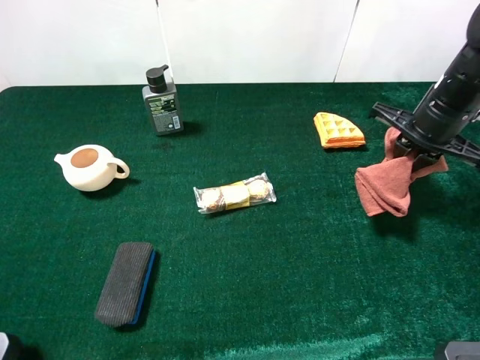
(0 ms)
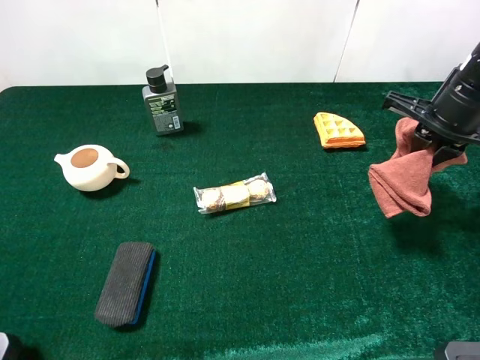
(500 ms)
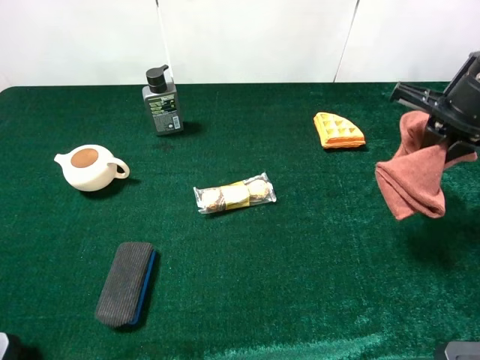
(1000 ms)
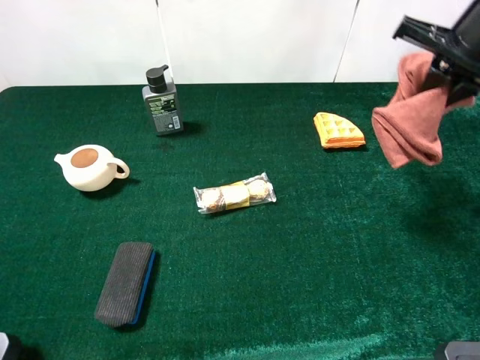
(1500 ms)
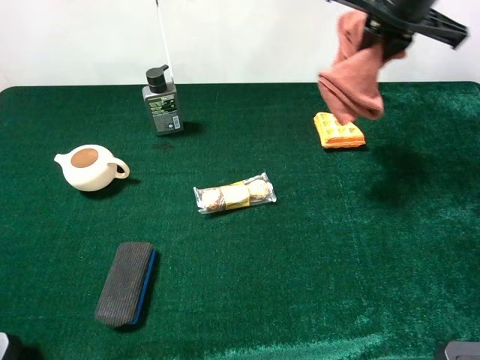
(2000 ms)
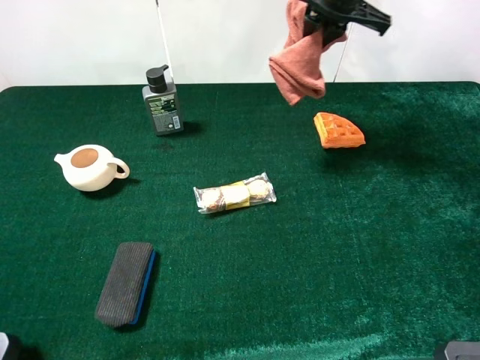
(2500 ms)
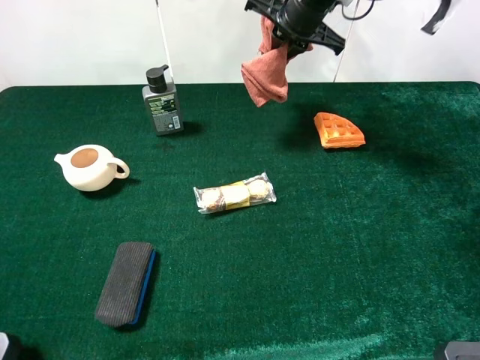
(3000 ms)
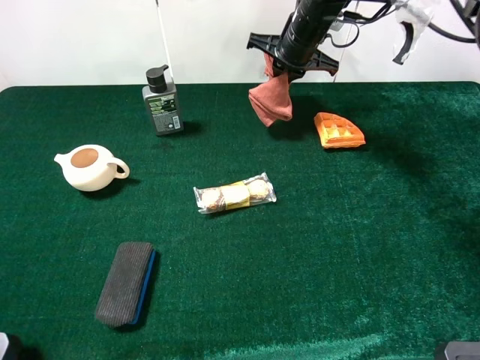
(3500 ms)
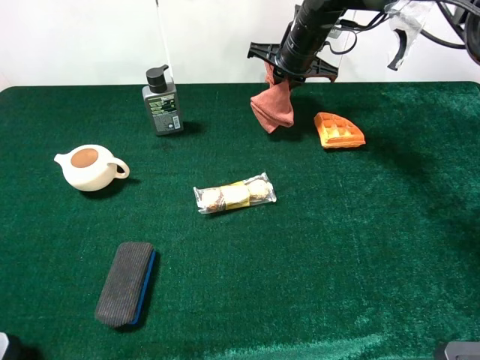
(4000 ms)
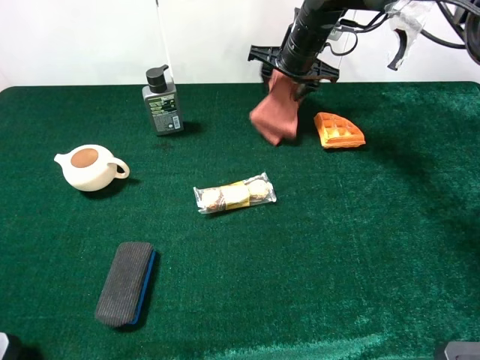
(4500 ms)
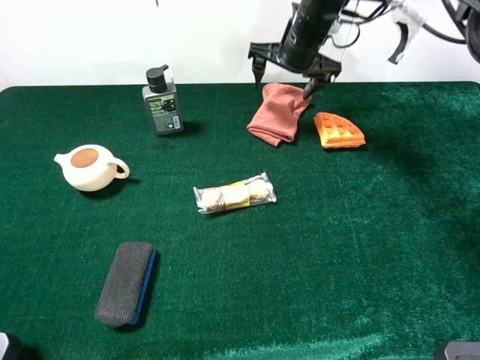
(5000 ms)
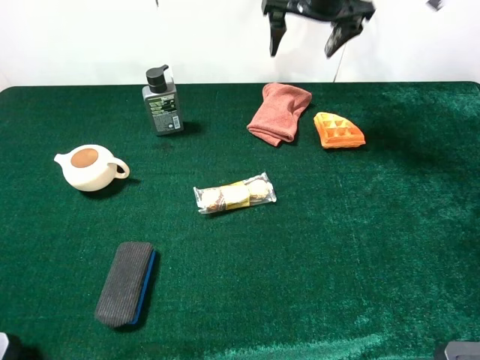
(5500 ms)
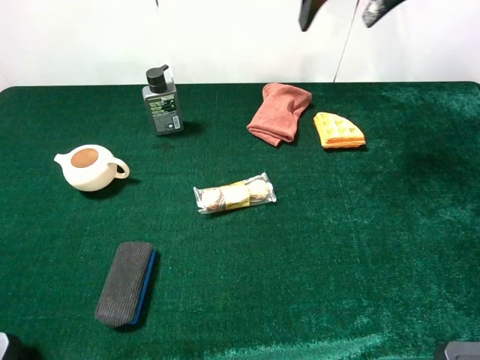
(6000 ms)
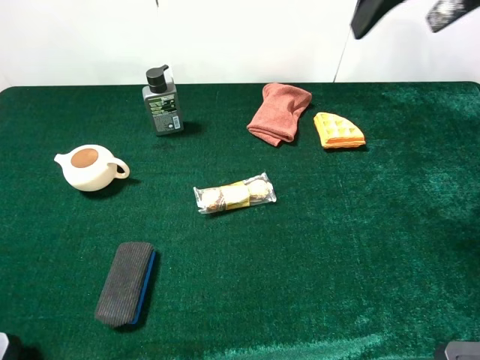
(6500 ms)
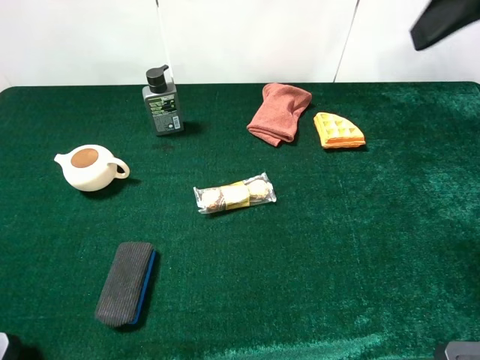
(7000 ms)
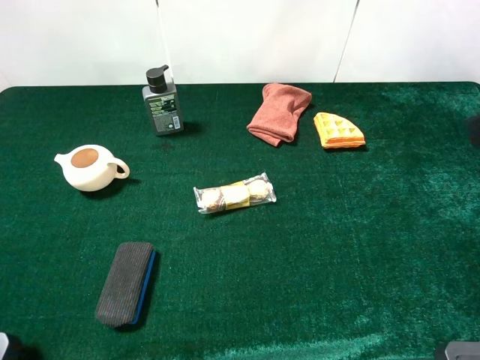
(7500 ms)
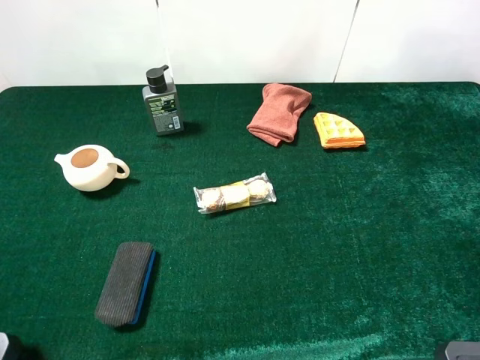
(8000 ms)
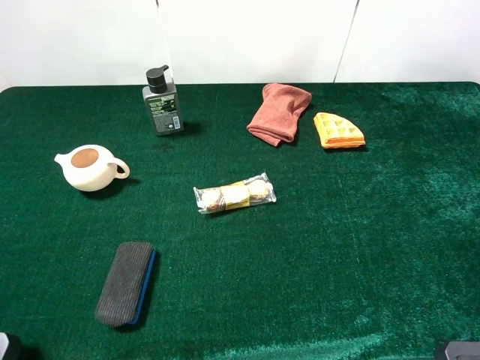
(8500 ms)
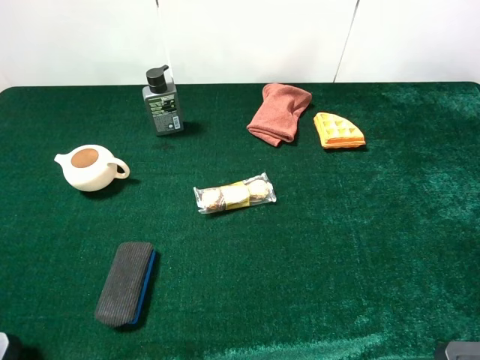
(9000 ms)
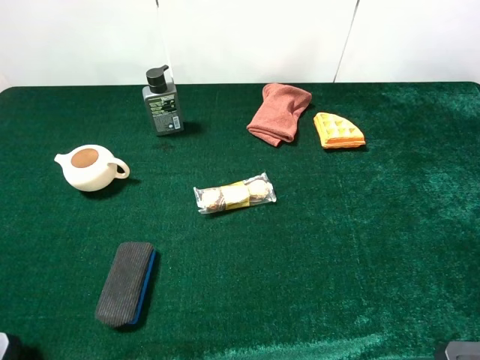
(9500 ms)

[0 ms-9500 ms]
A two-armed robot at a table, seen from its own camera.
Task of the whole recording: the gripper move the object.
0 ms to 2000 ms: The right gripper heads upward, to the left and forward, covering about 15 cm.
2000 ms to 4000 ms: The right gripper heads downward, forward and to the left, covering roughly 20 cm.
4000 ms to 5500 ms: The right gripper is displaced upward by some 10 cm, and opens.
5500 ms to 7500 ms: The right gripper travels backward and to the right by roughly 35 cm.

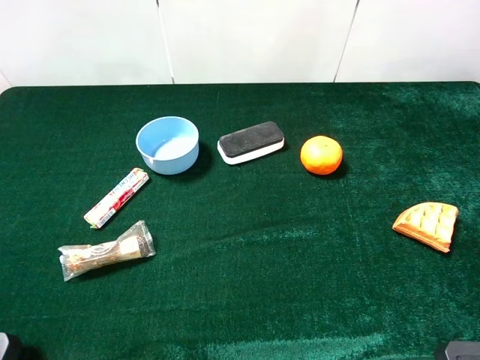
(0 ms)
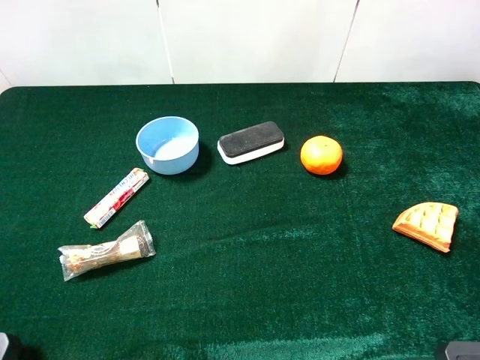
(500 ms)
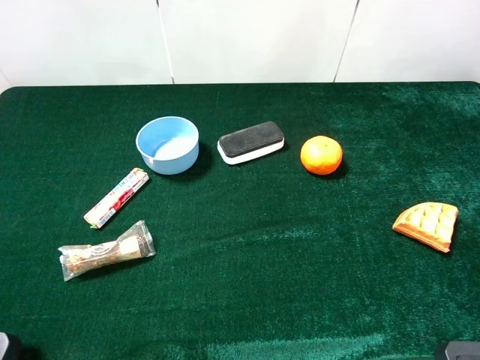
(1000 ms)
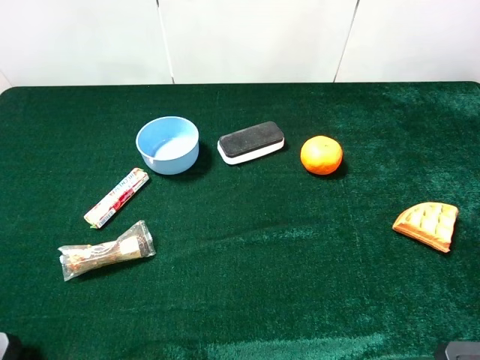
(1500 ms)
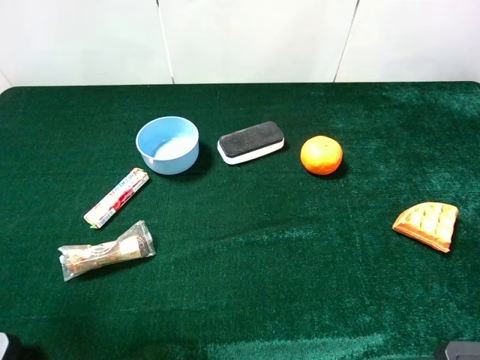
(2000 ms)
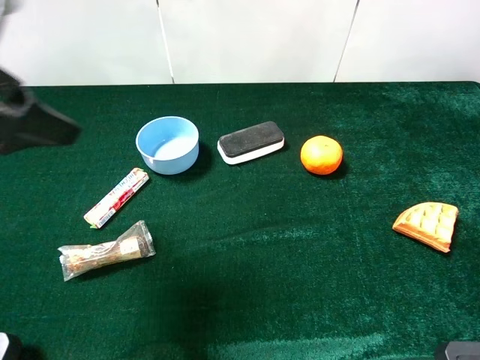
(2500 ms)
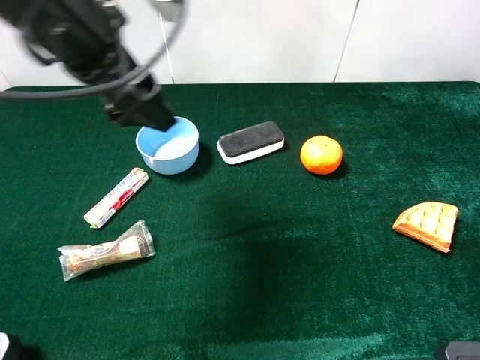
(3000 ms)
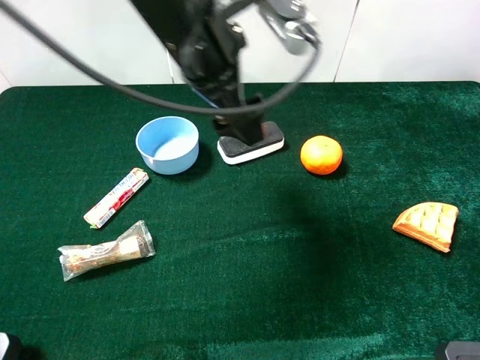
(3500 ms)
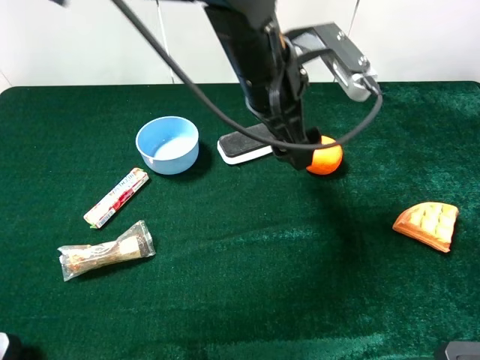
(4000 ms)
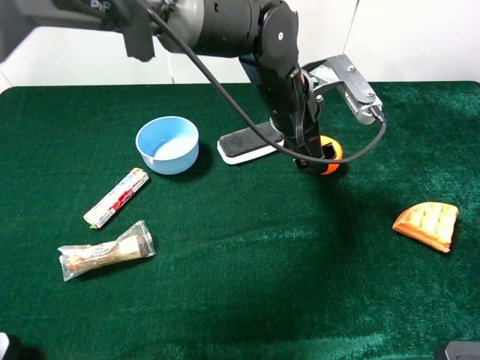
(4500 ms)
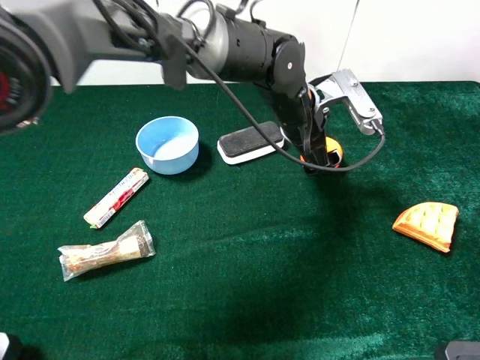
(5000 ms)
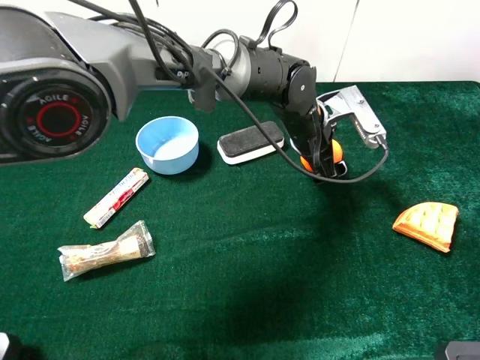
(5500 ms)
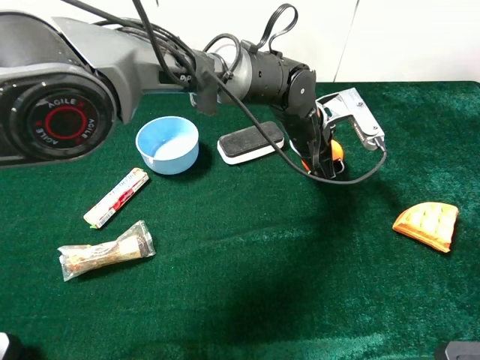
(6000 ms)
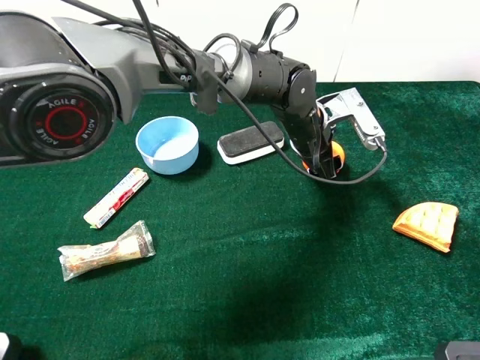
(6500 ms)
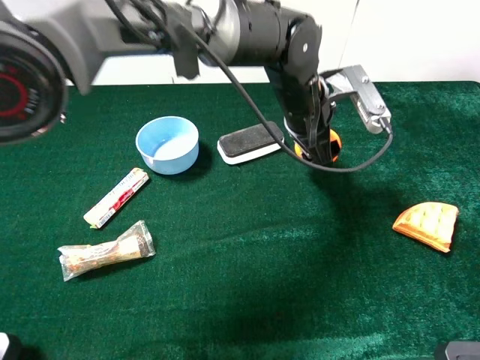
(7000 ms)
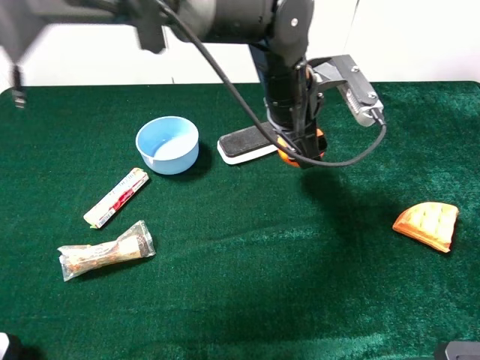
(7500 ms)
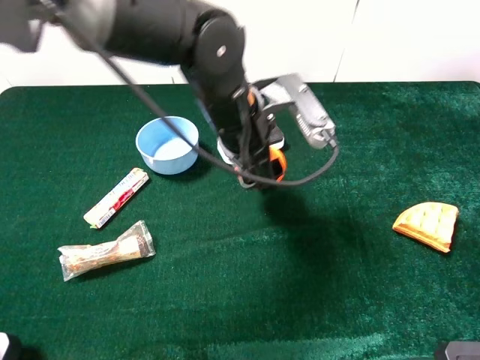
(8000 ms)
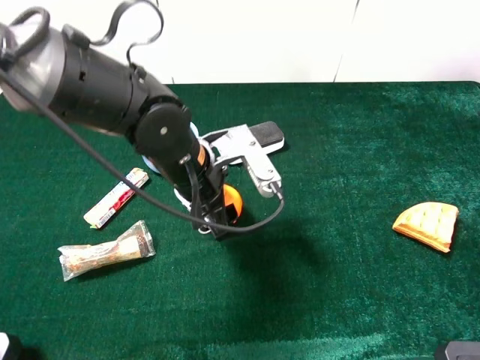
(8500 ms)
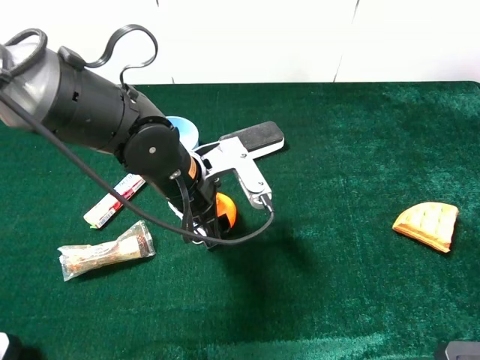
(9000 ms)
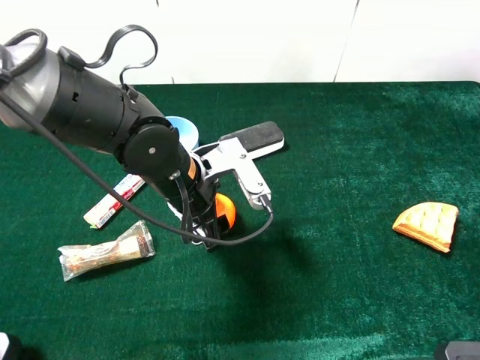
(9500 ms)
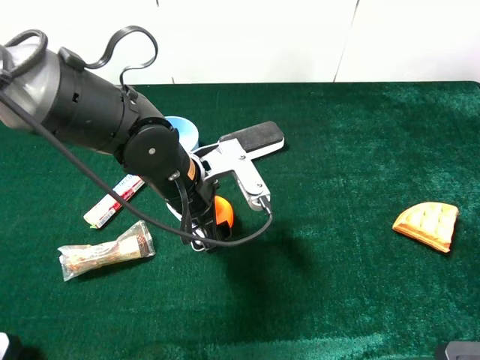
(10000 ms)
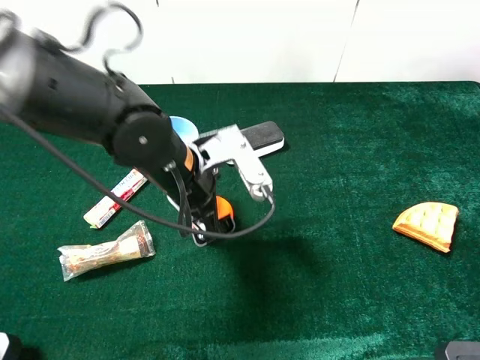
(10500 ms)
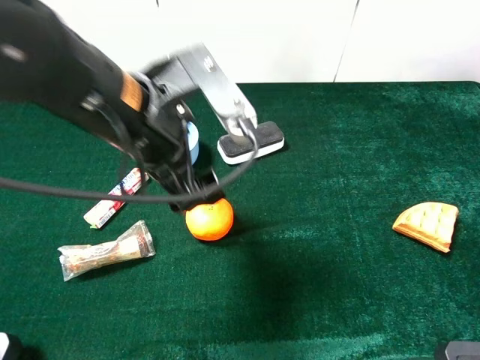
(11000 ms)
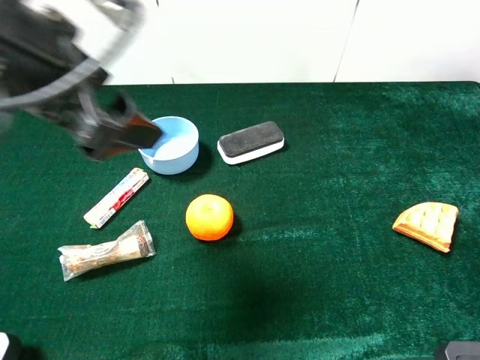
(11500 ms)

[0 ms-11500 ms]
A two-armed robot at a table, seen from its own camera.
Task of the whole recording: the gripper move the object.
Step, 0 ms to 6000 ms: Grasp the orange with the left gripper.
Step, 6500 ms to 10000 ms: Place the orange on the table with the left gripper.
0 ms to 2000 ms: The left gripper heads forward, covering roughly 10 cm.
2000 ms to 4000 ms: The left gripper goes roughly 40 cm to the right and forward.
4000 ms to 6000 ms: The left gripper travels downward and to the right by about 15 cm, and closes.
6000 ms to 7500 ms: The left gripper moves upward, about 10 cm.
7500 ms to 9500 ms: The left gripper moves to the left, backward and downward, roughly 15 cm.
9500 ms to 11500 ms: The left gripper moves upward and to the left, some 25 cm, and opens its fingers.

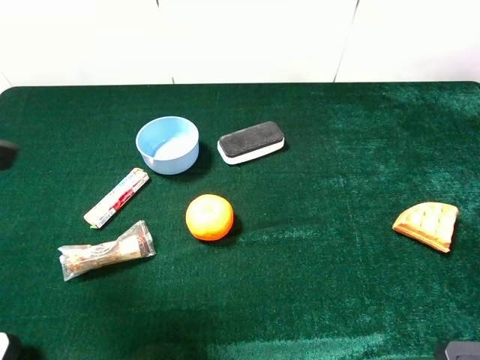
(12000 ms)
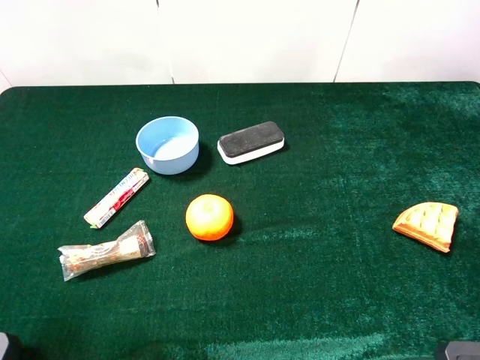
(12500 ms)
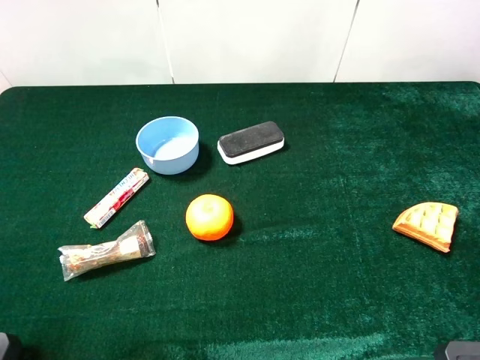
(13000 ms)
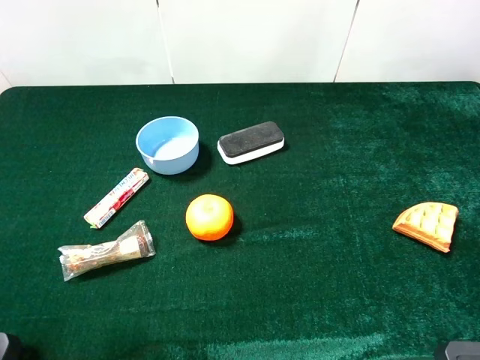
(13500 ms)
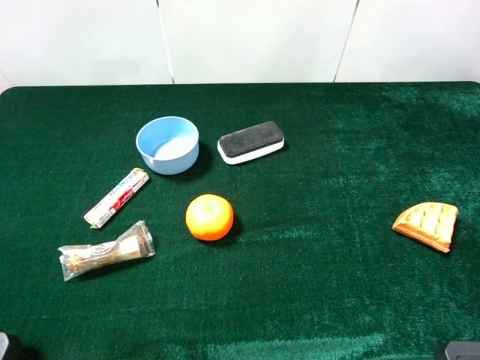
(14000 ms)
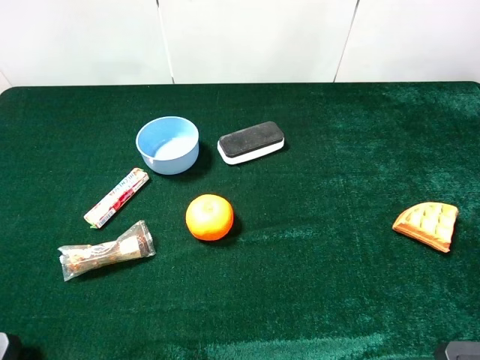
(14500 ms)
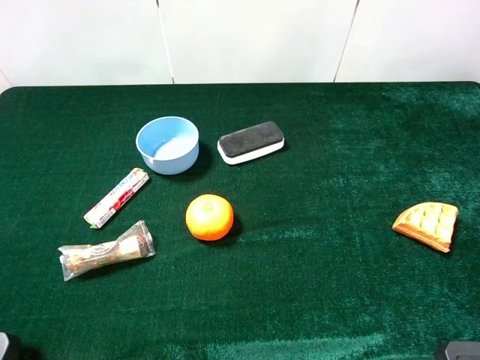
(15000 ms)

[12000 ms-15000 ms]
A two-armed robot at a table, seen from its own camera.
Task of the whole recording: the gripper move the object.
12000 ms to 13500 ms: The left gripper moves backward, approximately 5 cm.
